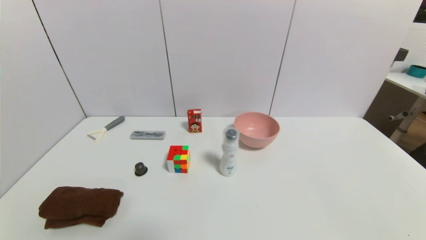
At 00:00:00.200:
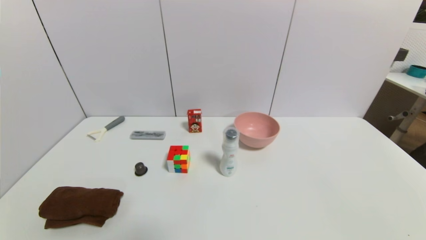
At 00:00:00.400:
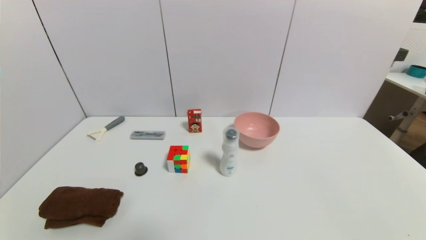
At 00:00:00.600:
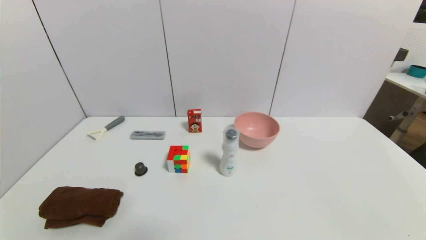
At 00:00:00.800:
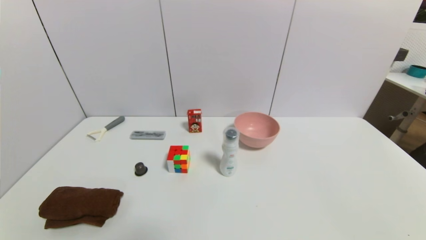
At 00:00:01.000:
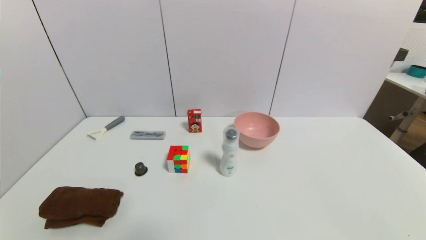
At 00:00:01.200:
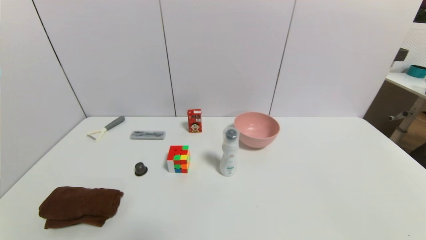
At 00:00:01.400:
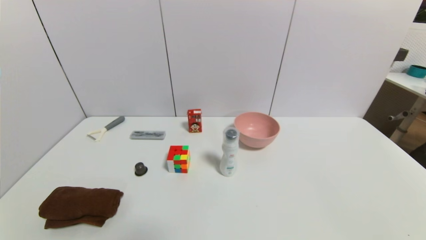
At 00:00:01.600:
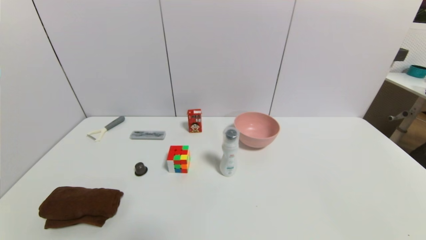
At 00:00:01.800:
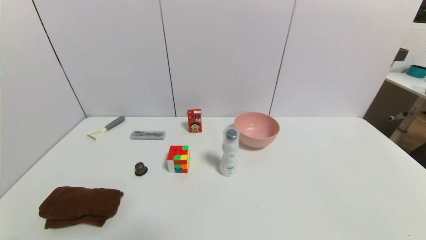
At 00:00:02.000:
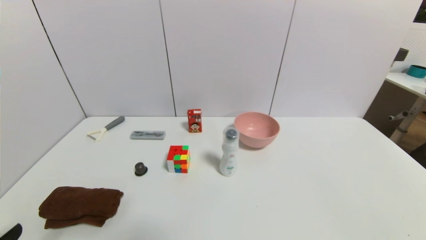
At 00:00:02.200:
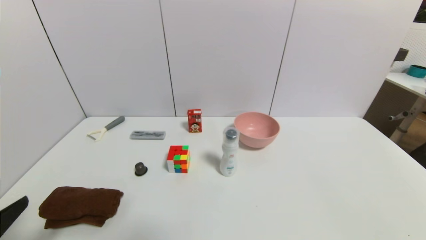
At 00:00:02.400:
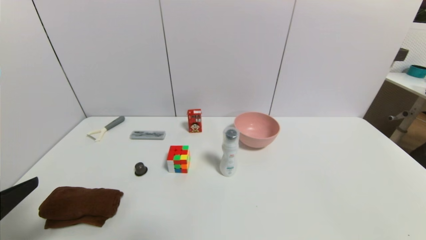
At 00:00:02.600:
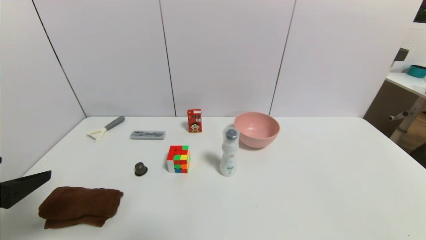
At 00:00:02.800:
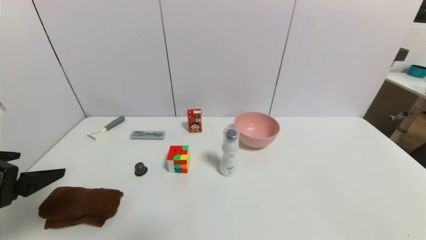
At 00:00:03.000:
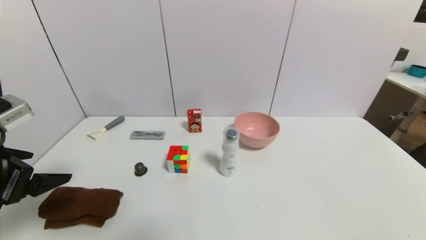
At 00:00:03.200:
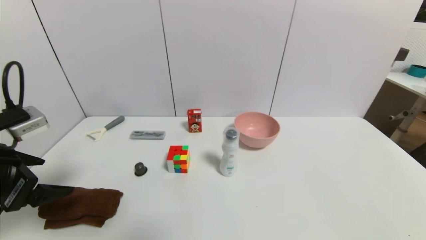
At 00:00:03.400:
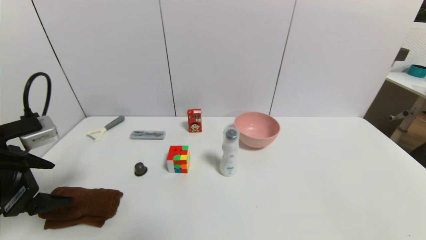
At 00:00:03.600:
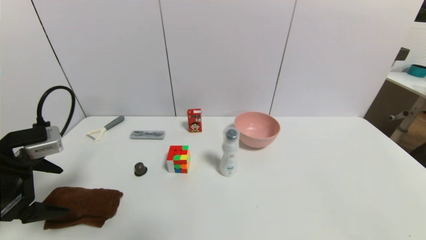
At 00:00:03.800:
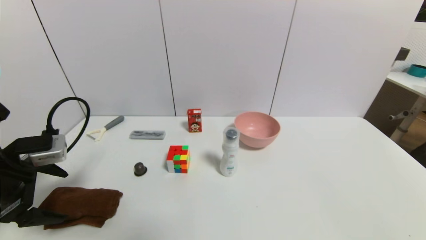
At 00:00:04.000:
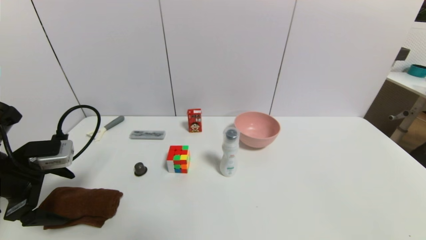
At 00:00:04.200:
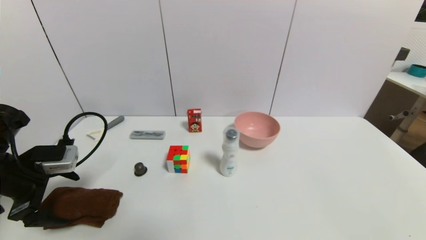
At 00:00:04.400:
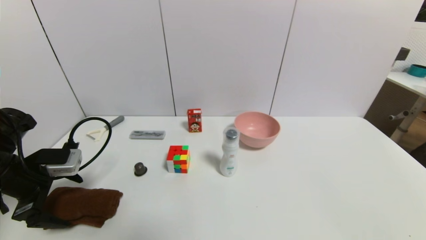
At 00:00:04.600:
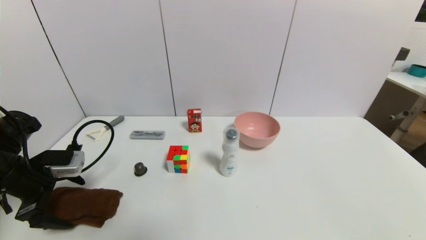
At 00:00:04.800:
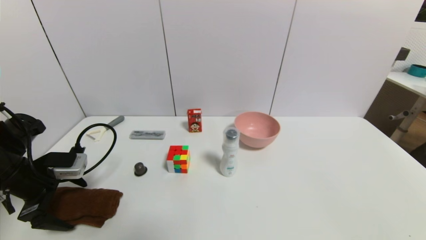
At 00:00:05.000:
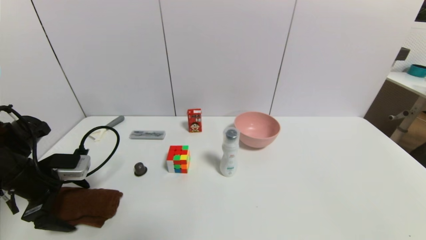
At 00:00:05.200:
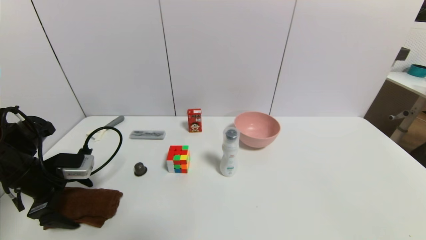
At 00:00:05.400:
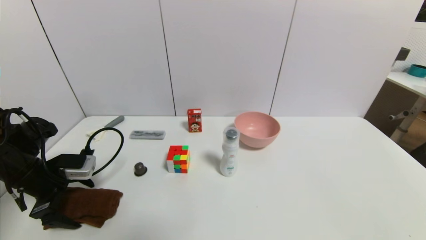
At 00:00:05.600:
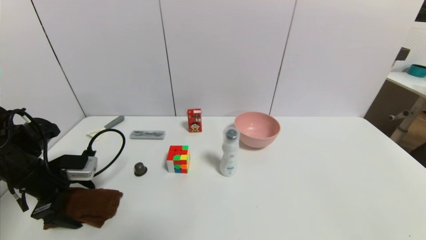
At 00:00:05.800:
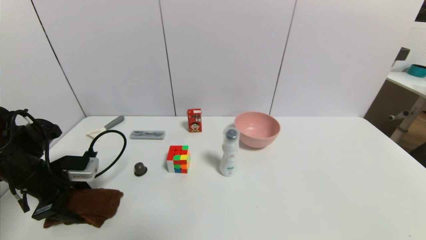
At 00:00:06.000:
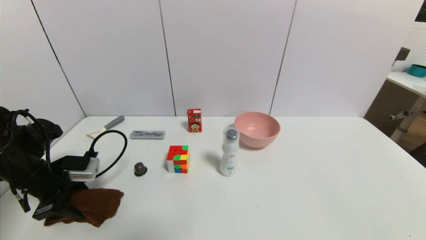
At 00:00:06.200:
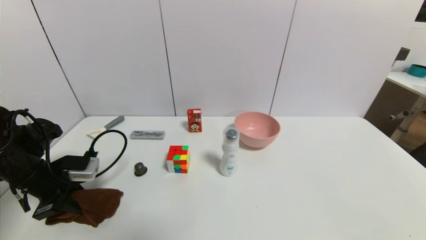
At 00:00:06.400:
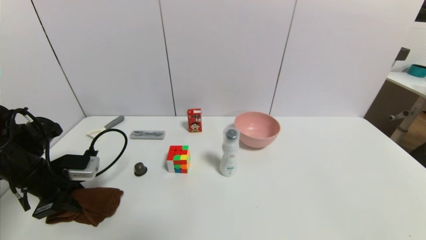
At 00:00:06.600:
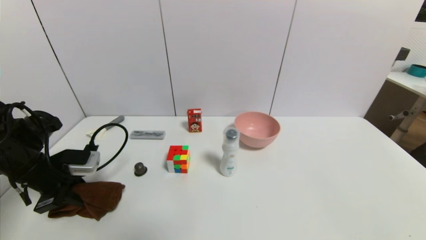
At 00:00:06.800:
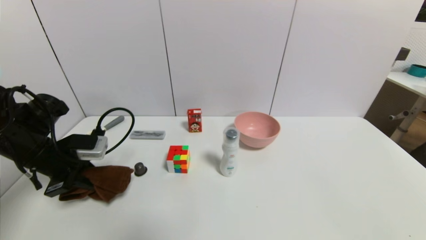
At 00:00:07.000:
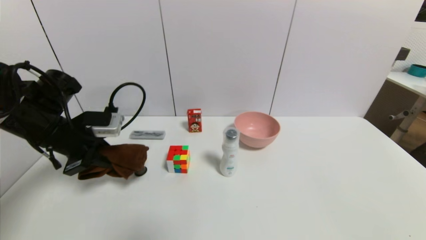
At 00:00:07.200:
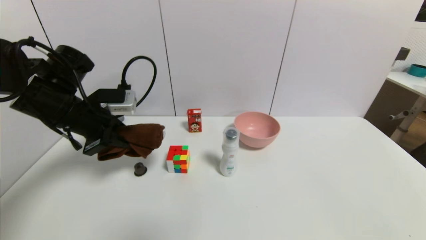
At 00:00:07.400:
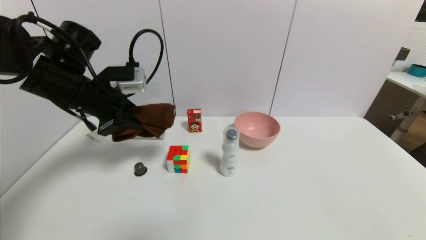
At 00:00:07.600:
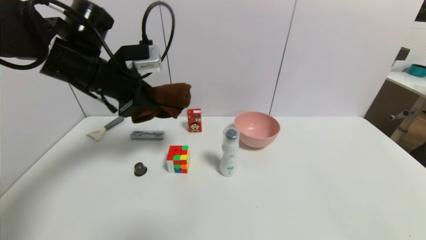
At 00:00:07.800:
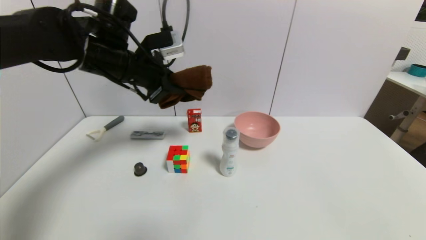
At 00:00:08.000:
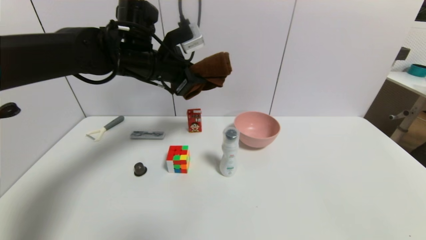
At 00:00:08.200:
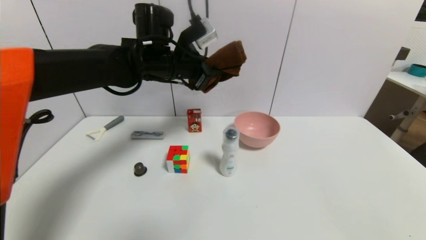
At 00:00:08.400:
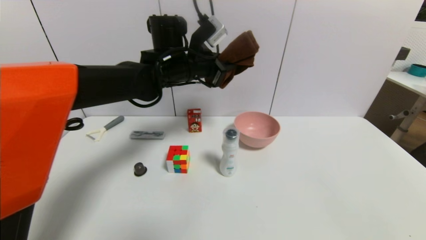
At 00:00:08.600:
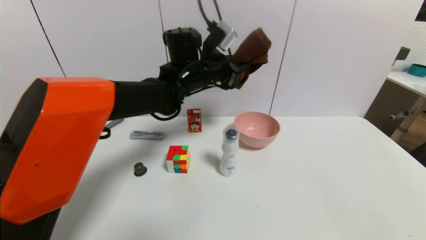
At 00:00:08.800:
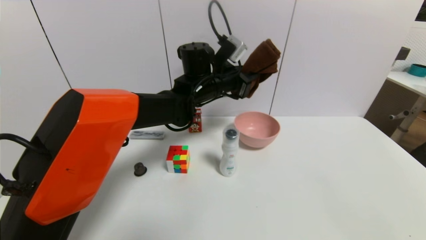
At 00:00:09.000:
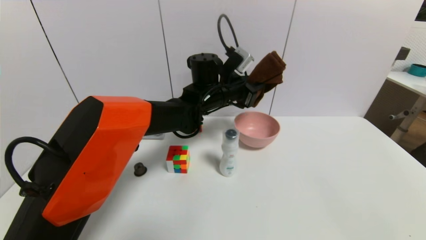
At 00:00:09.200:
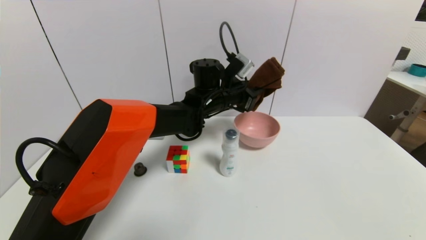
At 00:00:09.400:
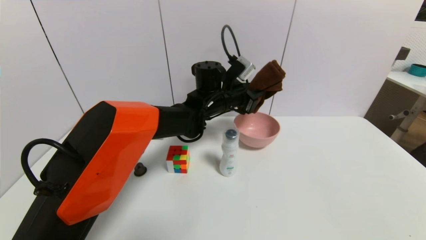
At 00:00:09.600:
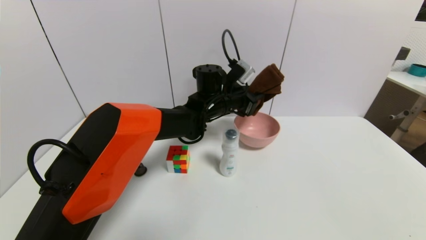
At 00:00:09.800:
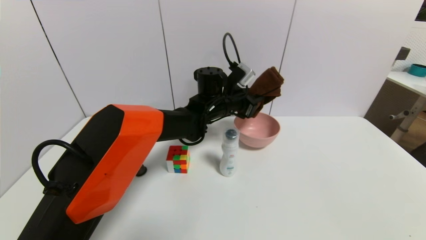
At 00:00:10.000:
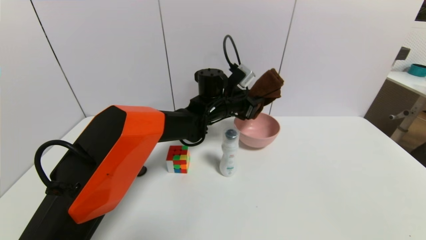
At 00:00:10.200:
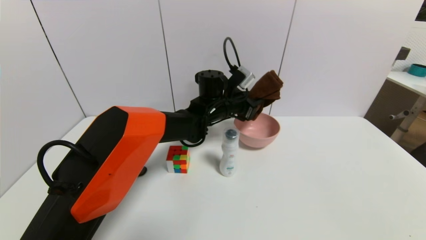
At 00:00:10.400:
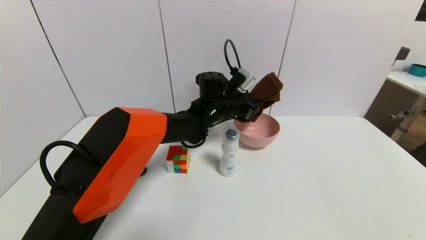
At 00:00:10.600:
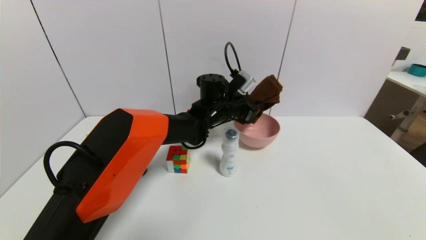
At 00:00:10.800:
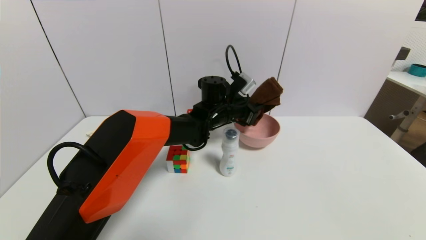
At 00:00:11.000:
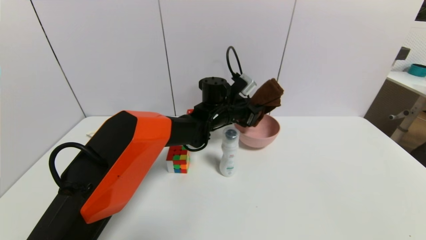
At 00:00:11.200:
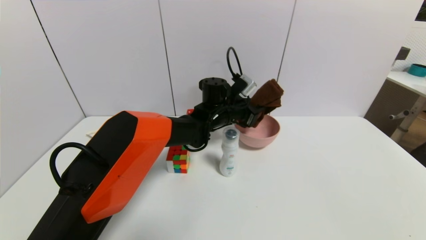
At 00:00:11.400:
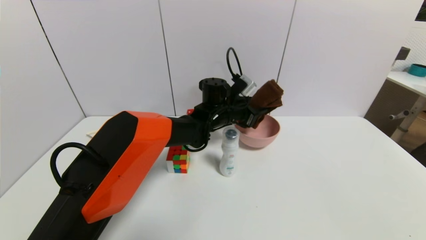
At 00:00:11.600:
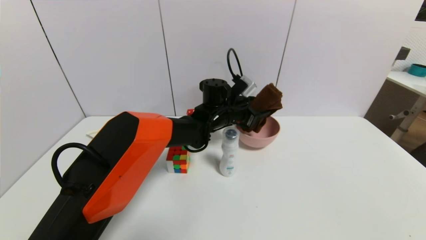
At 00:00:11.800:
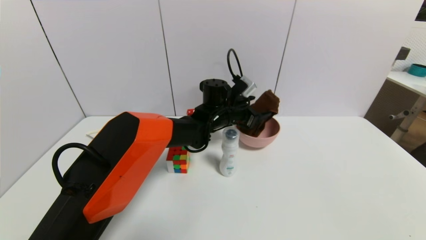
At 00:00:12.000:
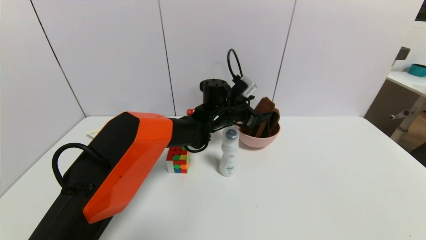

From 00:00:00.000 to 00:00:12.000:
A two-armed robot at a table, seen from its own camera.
Task of the whole recording: use a gripper to pick the target object and place on the pink bowl.
Step, from 00:00:00.000 to 00:00:06.200: Grasp the brown towel with the left gripper.
From 00:00:01.600 to 00:00:03.000: The left gripper moves forward and upward, approximately 25 cm.
From 00:00:03.000 to 00:00:04.400: The left gripper moves forward and downward, approximately 10 cm.
From 00:00:04.400 to 00:00:06.000: The left gripper closes up.
From 00:00:06.000 to 00:00:07.600: The left gripper heads upward and to the right, covering about 20 cm.
From 00:00:07.600 to 00:00:09.000: The left gripper goes about 25 cm to the right and forward.
From 00:00:09.000 to 00:00:10.400: There are only small adjustments of the grippers.
From 00:00:10.400 to 00:00:12.000: The left gripper opens up.

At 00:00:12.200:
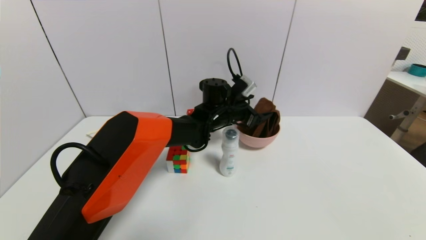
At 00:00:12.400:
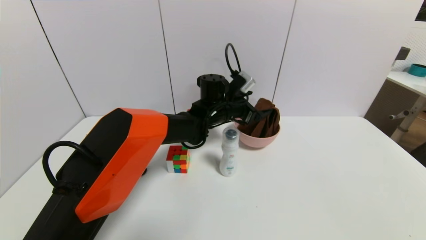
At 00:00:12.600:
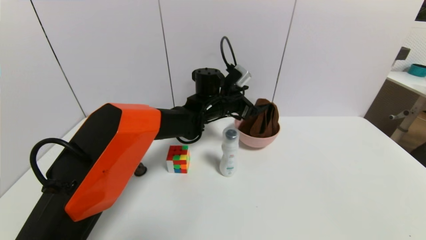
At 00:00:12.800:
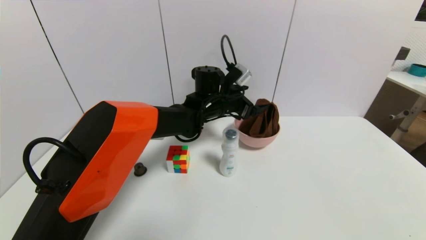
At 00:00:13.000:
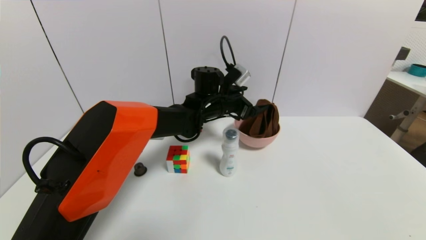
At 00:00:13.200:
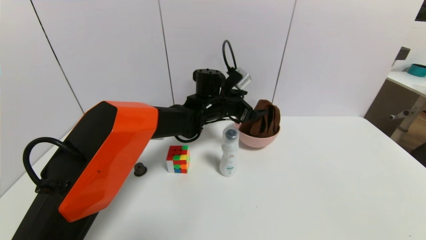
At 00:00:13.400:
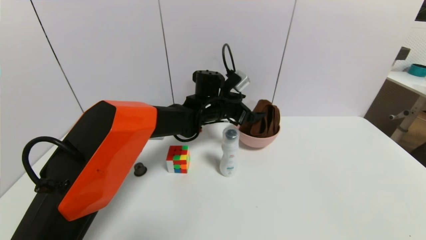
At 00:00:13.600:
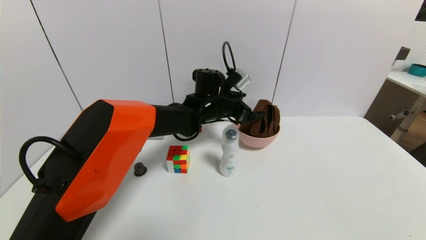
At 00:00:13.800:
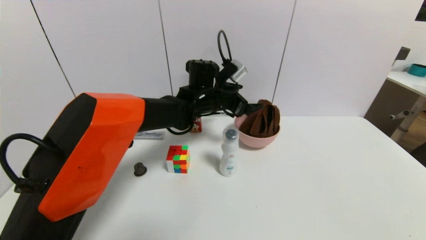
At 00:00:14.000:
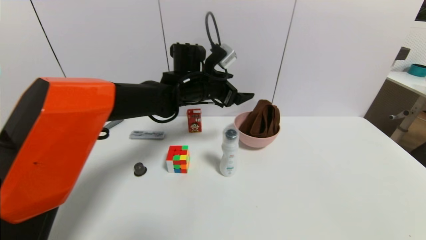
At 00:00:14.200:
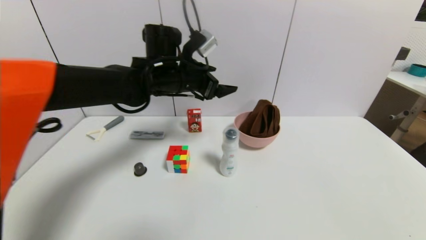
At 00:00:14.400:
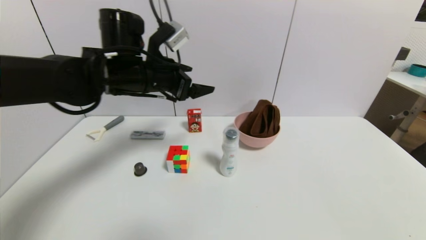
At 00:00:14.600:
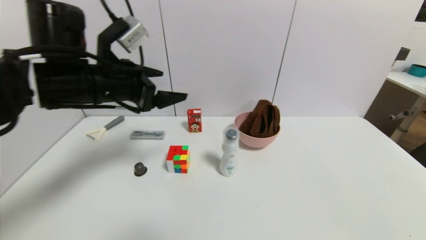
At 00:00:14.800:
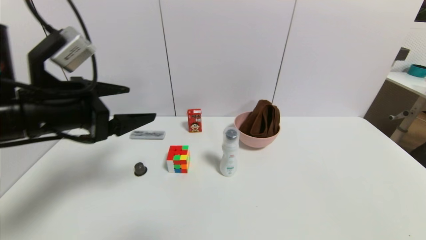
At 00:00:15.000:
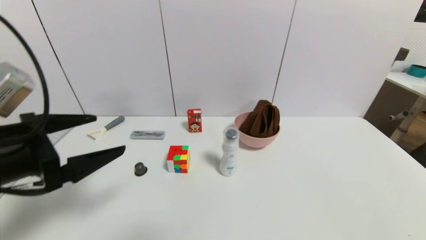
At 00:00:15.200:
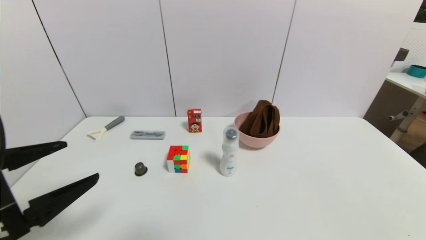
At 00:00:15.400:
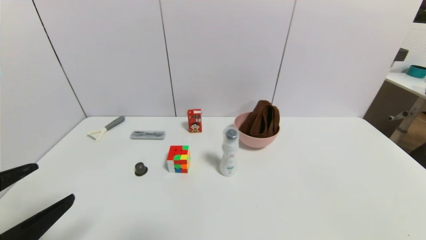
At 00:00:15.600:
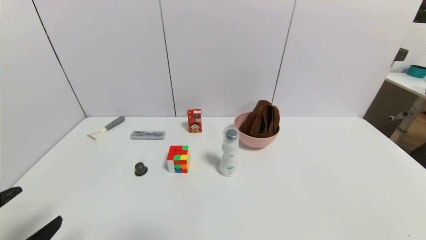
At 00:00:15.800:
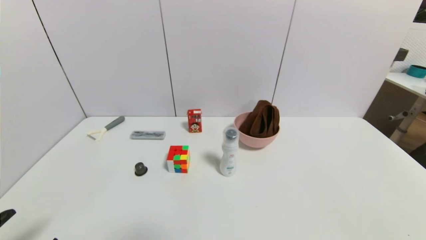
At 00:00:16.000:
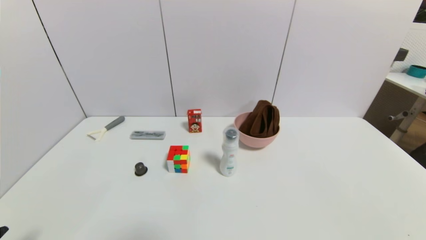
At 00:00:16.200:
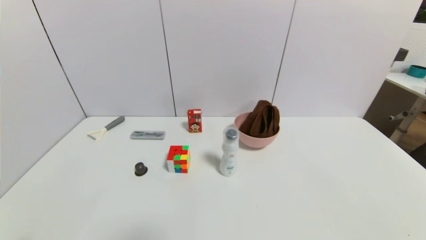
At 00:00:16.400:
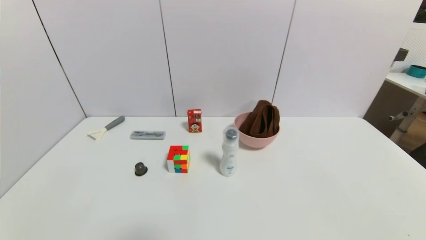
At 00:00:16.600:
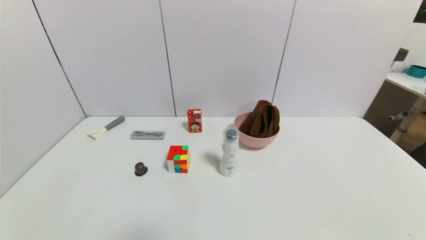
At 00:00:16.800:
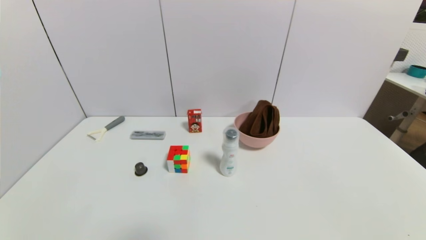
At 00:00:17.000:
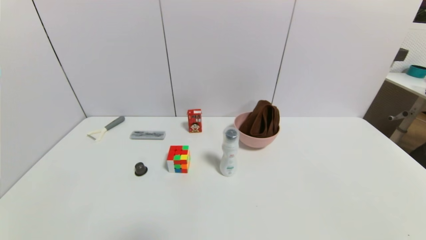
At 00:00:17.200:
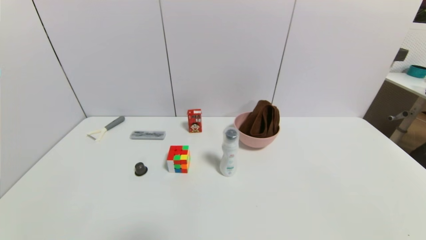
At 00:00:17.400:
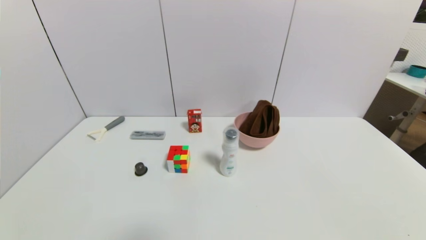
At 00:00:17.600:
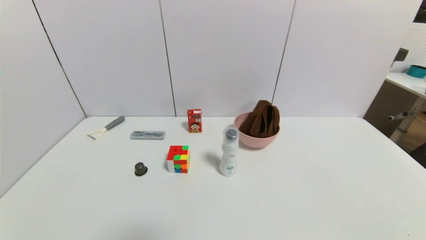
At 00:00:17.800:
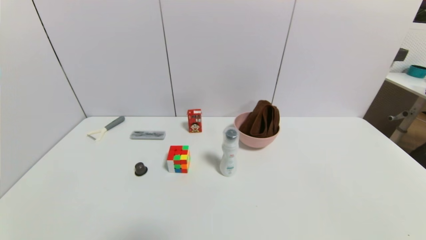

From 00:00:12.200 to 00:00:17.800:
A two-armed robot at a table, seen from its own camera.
Task of the whole recording: use a gripper to pick the target object and place on the pink bowl.
From 00:00:12.200 to 00:00:13.600: The grippers make only small movements.
From 00:00:13.600 to 00:00:15.000: The left gripper goes about 40 cm backward and to the left.
From 00:00:15.000 to 00:00:16.400: The left gripper is displaced downward and backward by some 25 cm.
From 00:00:16.400 to 00:00:17.800: Neither gripper changes place.
